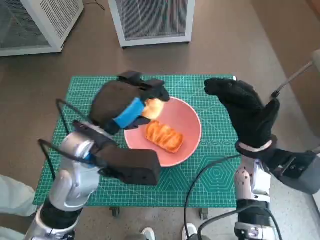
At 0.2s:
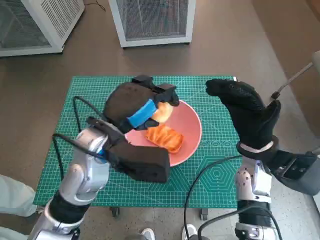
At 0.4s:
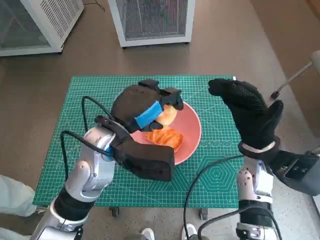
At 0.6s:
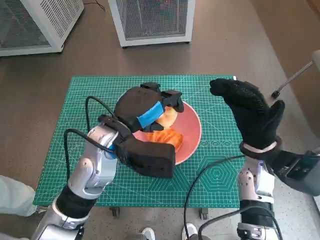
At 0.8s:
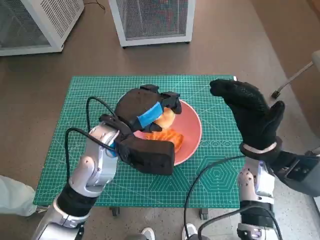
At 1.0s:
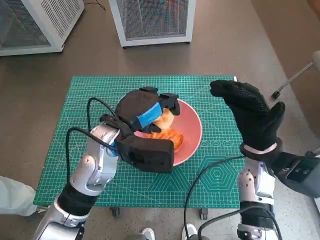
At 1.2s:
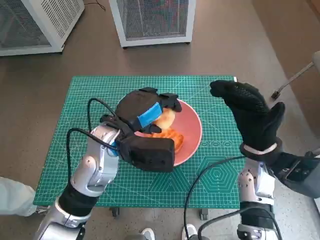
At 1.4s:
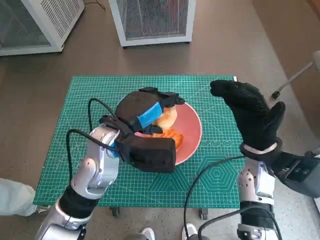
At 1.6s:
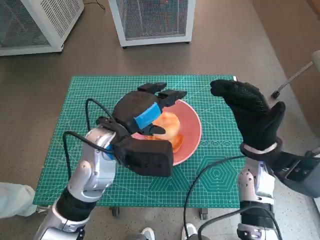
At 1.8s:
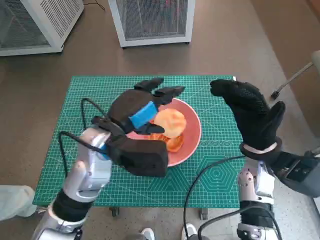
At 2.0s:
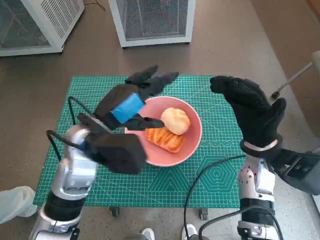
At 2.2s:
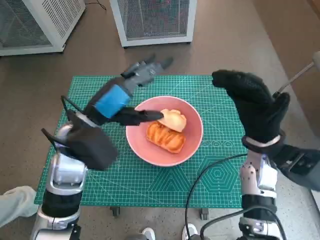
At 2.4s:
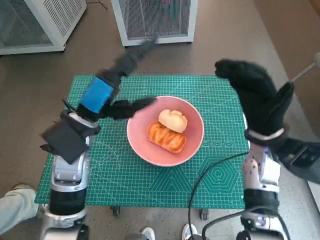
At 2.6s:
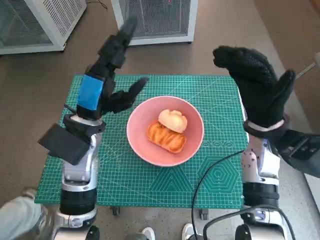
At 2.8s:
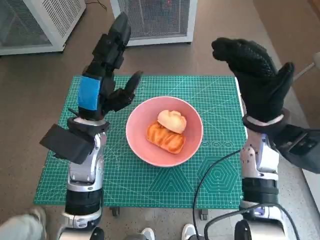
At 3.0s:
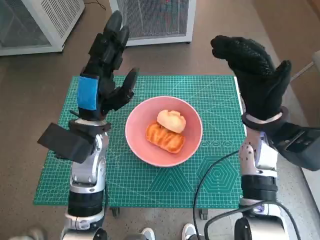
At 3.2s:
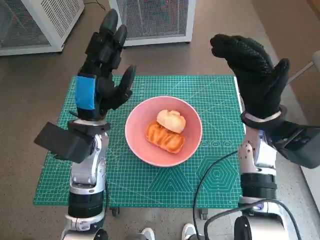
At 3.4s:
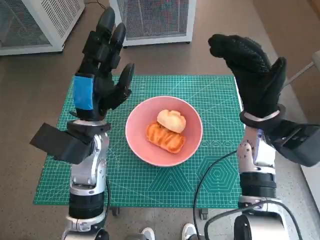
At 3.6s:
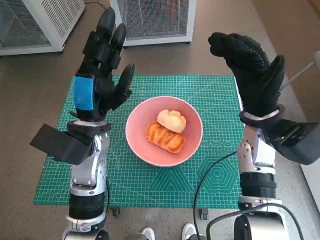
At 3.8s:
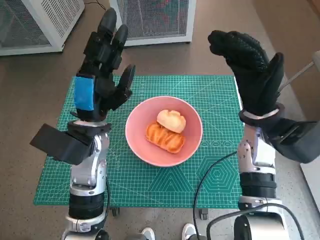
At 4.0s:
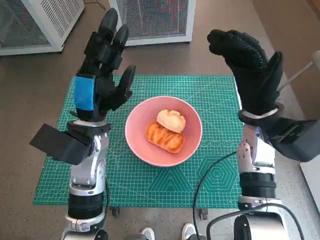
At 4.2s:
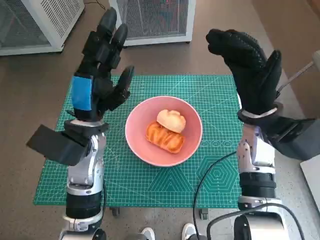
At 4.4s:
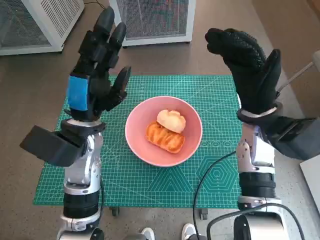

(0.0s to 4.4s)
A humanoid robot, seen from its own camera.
Task of the whole recording: Push the bowl into the center of the table and put the bread into the bowl.
1.4s - 3.0s: The right hand is displaced upward by roughly 5 cm.
3.0s - 4.4s: There are only small adjustments of the hands.

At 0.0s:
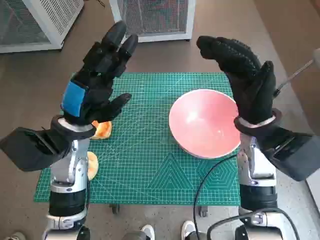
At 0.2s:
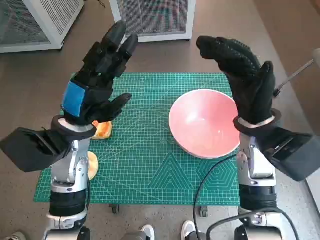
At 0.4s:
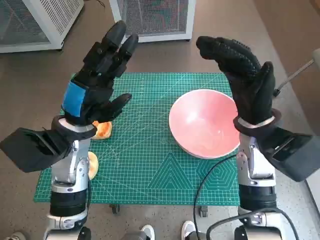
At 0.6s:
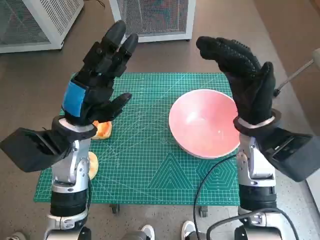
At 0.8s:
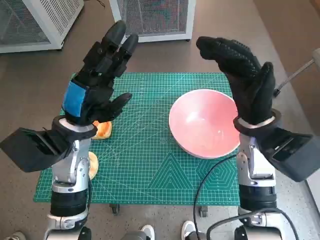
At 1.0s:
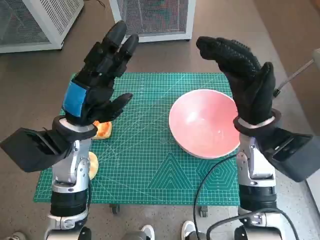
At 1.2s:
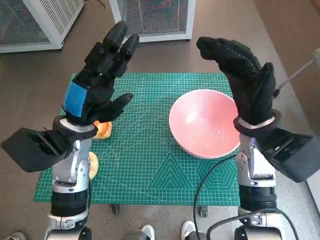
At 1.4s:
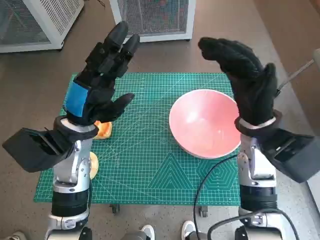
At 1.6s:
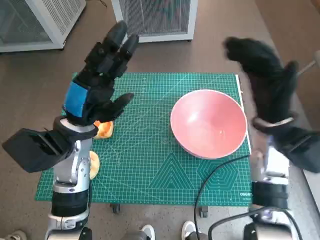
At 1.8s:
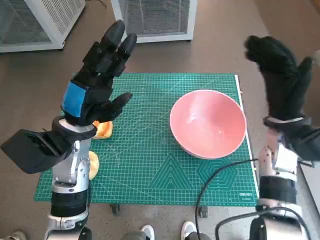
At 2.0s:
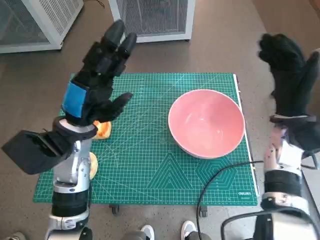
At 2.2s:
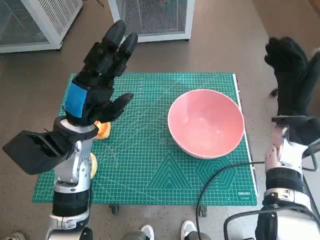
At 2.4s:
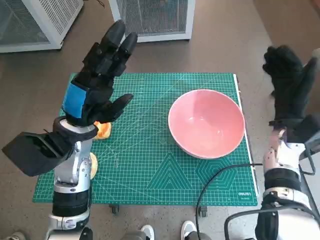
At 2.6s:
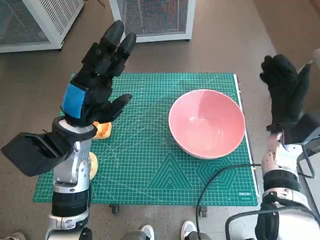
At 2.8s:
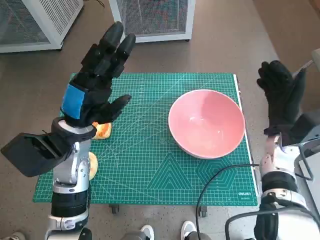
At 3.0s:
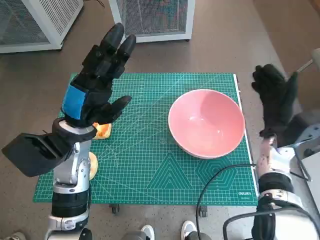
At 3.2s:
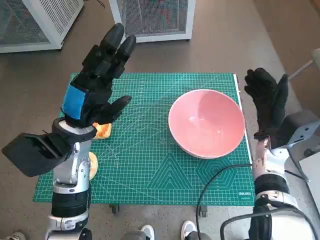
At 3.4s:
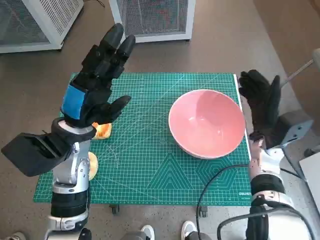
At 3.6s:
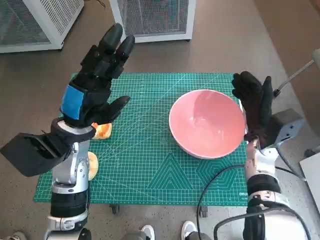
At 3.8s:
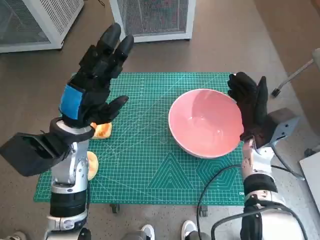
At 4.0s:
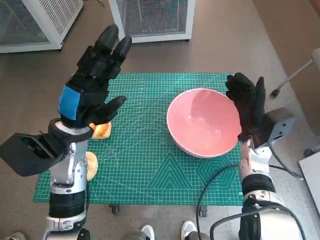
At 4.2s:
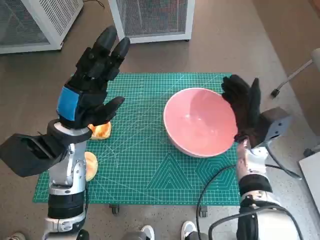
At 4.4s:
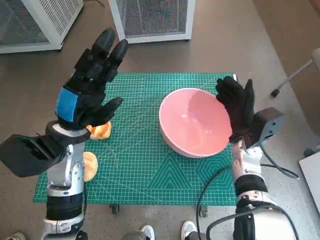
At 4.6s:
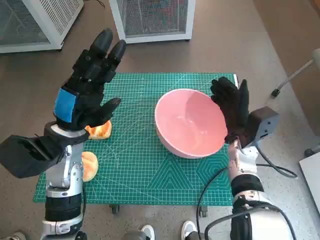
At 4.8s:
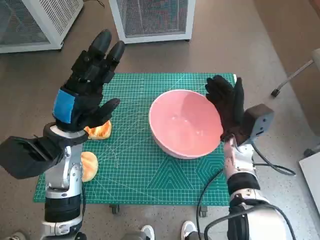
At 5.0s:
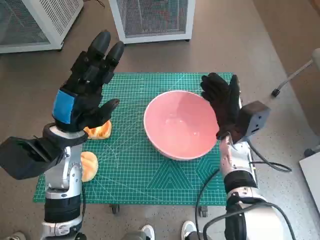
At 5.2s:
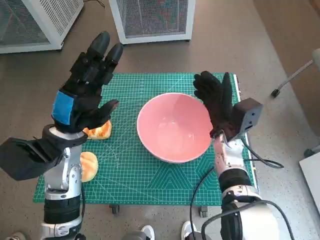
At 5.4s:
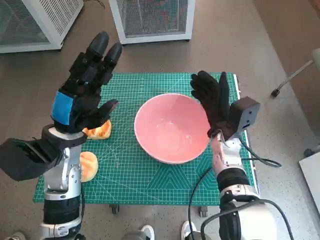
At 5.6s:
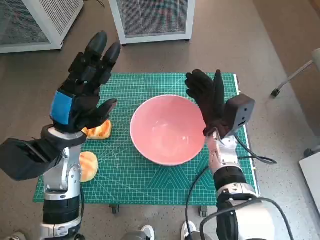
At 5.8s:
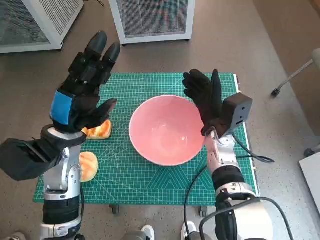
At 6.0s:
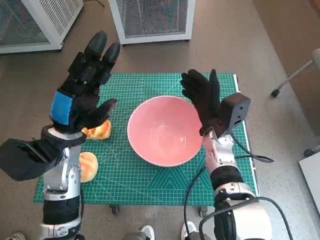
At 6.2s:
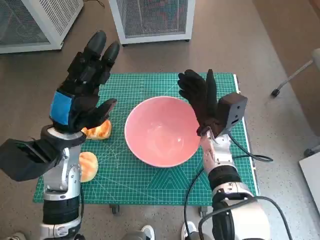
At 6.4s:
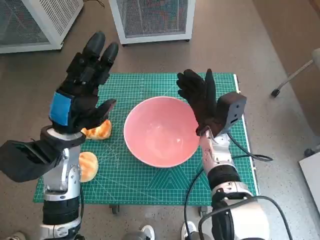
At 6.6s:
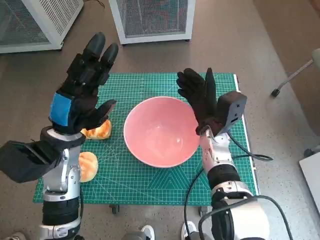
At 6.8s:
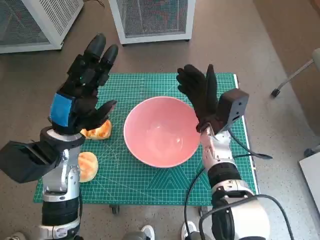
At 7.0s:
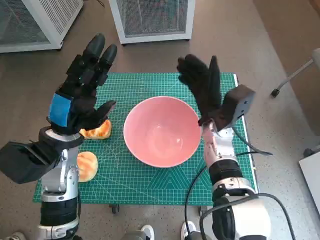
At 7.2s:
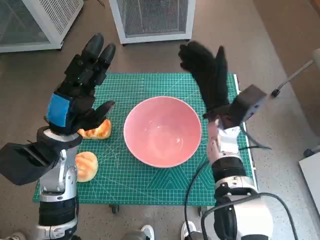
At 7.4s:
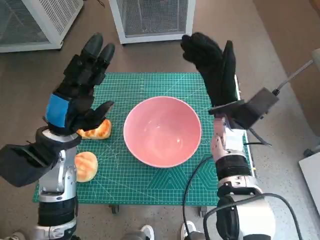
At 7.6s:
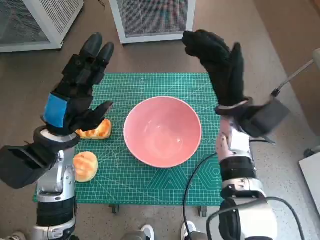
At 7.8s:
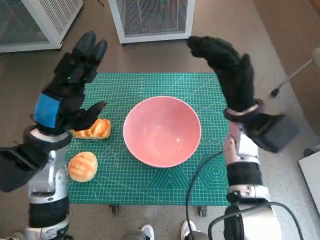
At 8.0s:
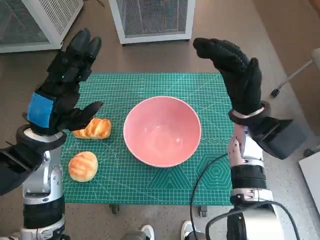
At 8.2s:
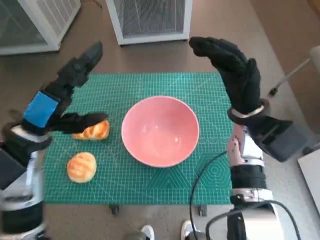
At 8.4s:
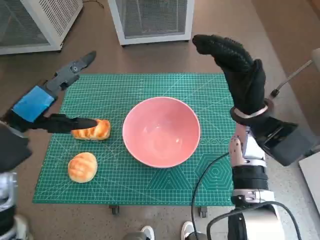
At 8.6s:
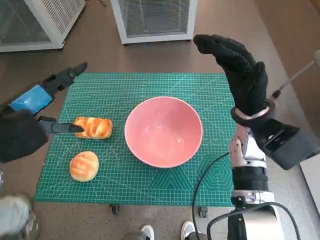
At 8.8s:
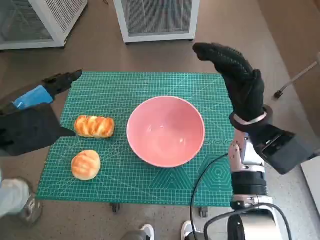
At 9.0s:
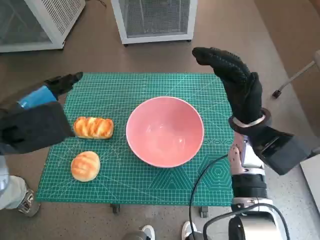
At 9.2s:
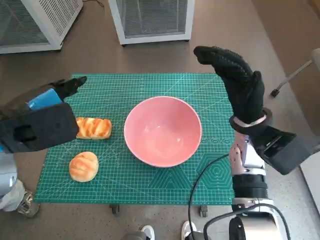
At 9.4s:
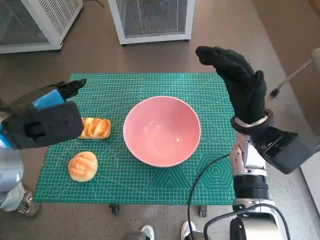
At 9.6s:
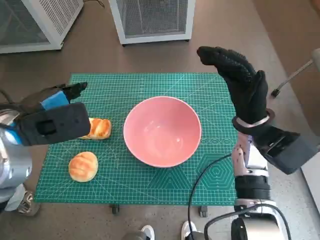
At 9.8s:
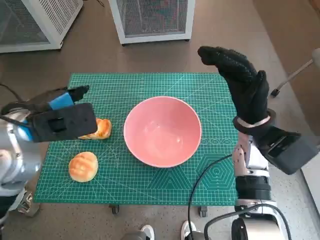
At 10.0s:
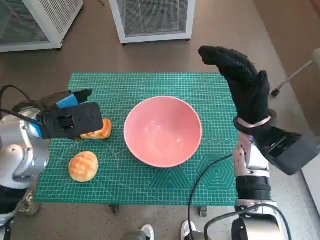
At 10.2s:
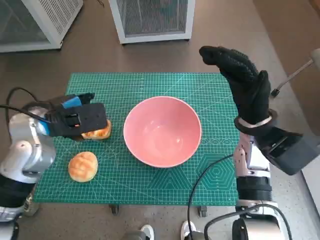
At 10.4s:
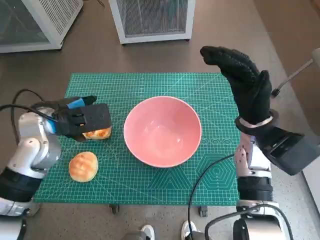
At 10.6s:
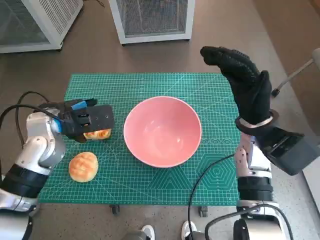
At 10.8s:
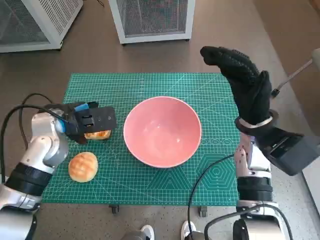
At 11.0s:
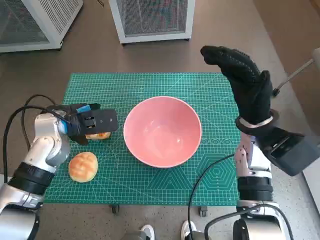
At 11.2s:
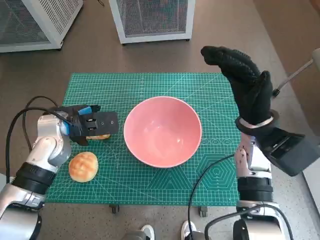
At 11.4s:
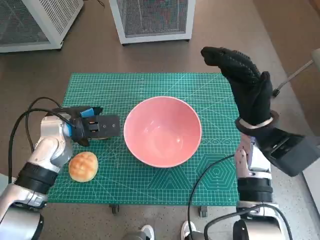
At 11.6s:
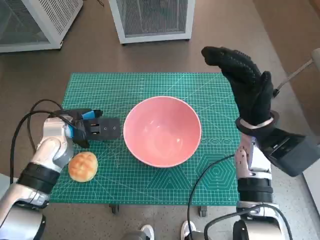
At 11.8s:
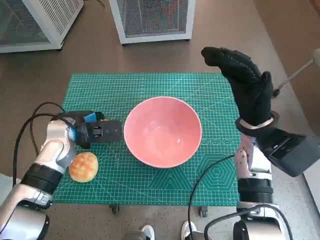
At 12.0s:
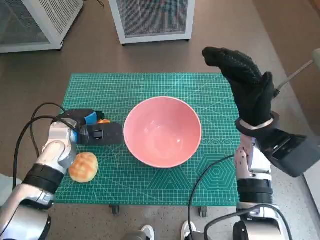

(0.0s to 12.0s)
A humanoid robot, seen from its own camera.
Task of the whole recording: Push the bowl into the center of the table and put the bread into the bowl.
Step, 0.0s - 7.0s: Move the pink bowl to the center of table with right hand.
1.6s - 3.0s: The right hand moves downward and to the right, about 10 cm.
3.0s - 4.4s: The right hand travels to the left by about 5 cm.
4.4s - 6.0s: The right hand heads to the left, covering about 5 cm.
6.0s - 7.6s: The right hand is displaced upward by some 5 cm.
7.6s - 9.0s: The left hand shifts some 10 cm upward.
9.0s - 10.4s: The left hand shifts some 10 cm downward and forward.
10.4s - 12.0s: The left hand moves downward, approximately 5 cm.

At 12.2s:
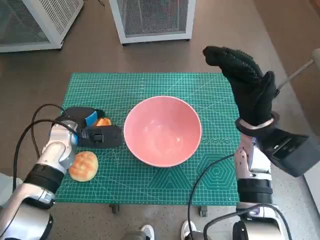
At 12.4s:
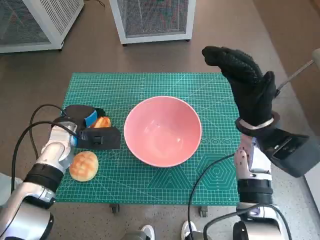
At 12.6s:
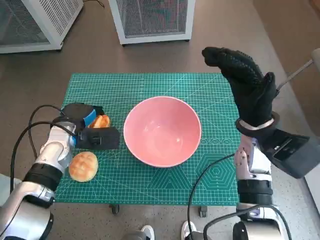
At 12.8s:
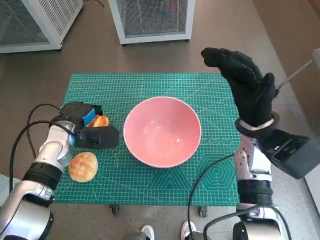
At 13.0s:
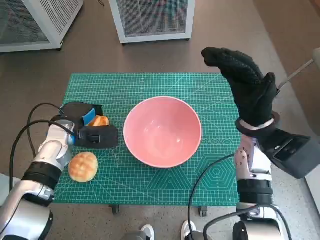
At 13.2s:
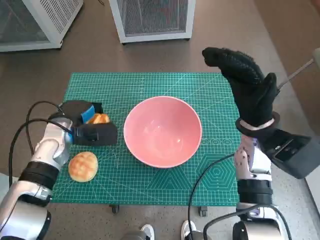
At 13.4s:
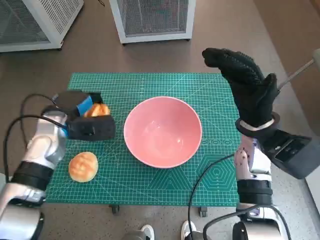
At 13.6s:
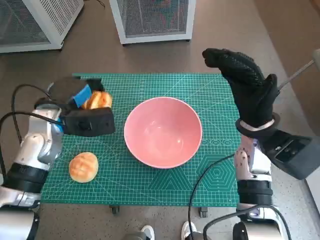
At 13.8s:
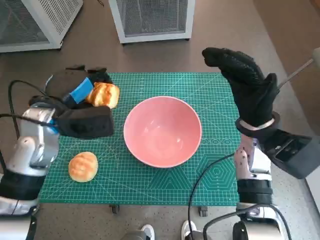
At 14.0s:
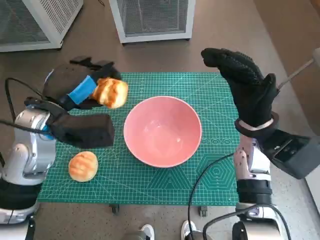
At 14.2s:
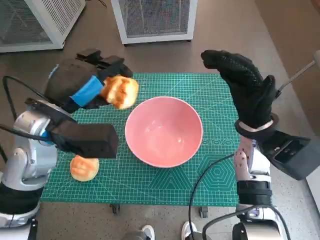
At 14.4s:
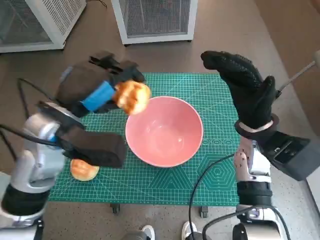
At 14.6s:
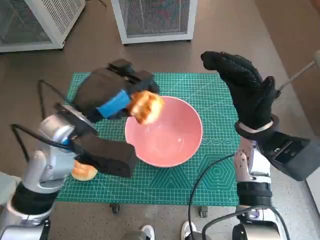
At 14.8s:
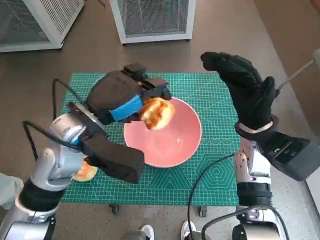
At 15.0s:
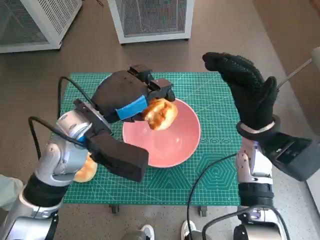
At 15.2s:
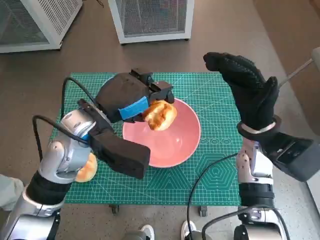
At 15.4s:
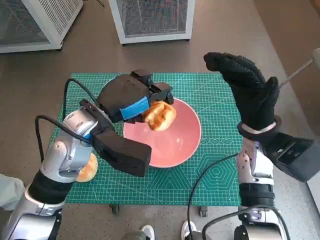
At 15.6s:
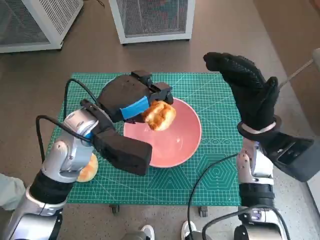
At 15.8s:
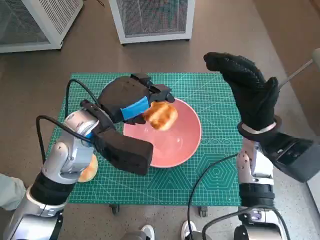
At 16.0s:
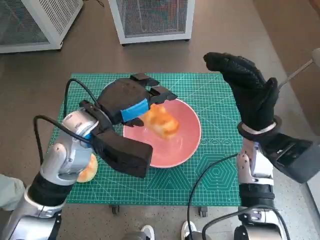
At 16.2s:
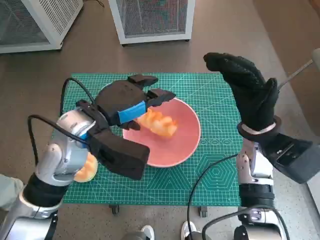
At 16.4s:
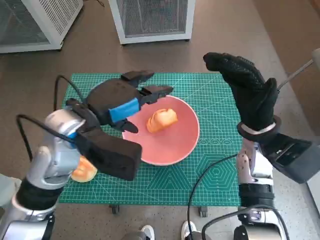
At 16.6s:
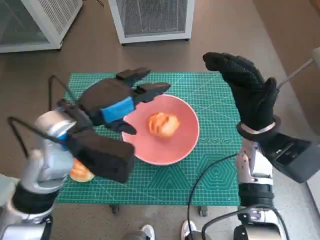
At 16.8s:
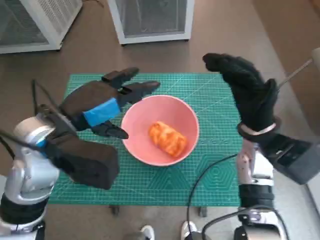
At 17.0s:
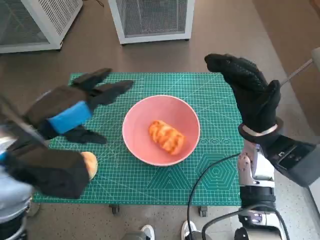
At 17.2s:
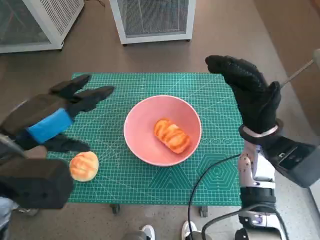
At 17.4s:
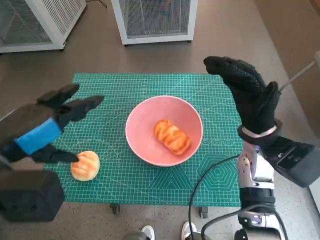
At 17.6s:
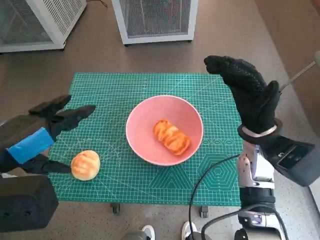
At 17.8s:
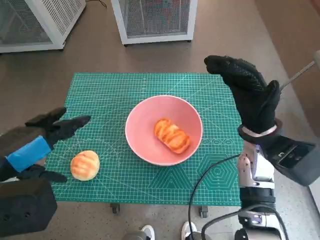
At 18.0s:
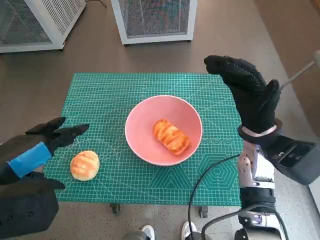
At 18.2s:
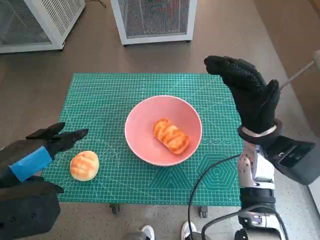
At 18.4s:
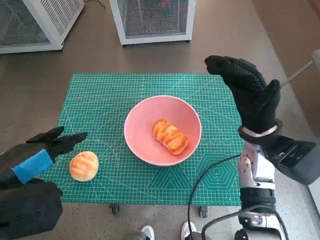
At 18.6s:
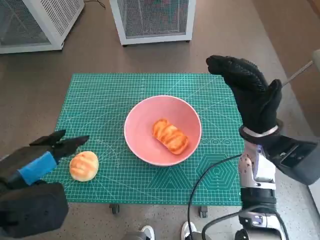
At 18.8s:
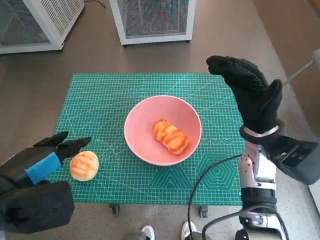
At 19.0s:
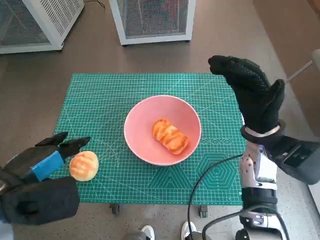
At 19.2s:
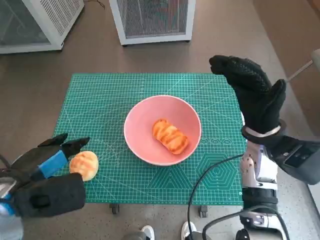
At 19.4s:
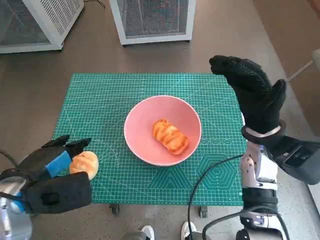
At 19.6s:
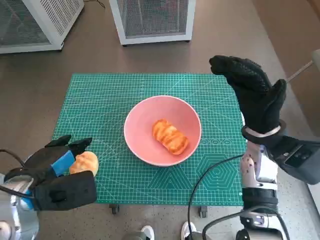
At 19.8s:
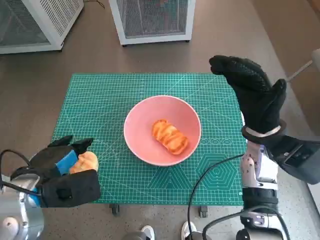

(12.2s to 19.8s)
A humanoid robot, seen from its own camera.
Task of the whole recording: Push the bowl into the center of the table and put the bread into the bowl.
Step, 12.4s - 16.4s: Place the long bread in pink bowl with left hand.
12.2s - 13.8s: The left hand goes approximately 10 cm upward.
13.8s - 15.2s: The left hand goes roughly 10 cm to the right.
15.2s - 16.8s: The left hand changes place by approximately 5 cm.
16.8s - 18.2s: The left hand moves backward and to the left, about 10 cm.
18.2s - 19.8s: The left hand travels downward by approximately 10 cm.
